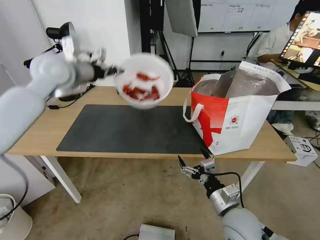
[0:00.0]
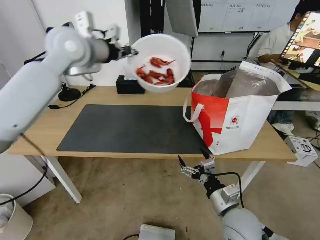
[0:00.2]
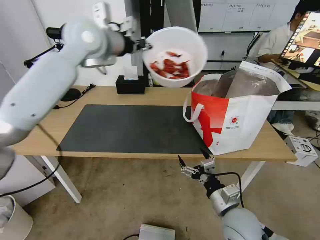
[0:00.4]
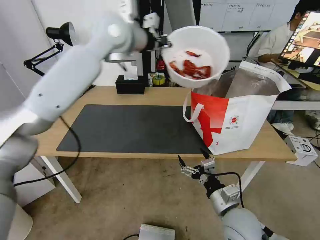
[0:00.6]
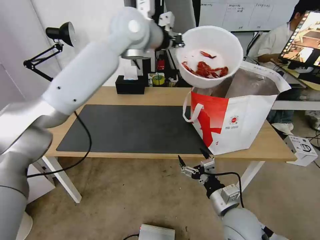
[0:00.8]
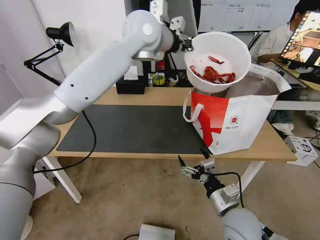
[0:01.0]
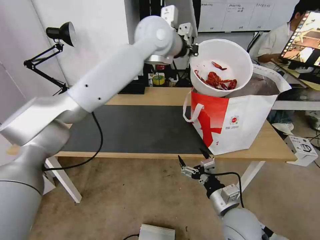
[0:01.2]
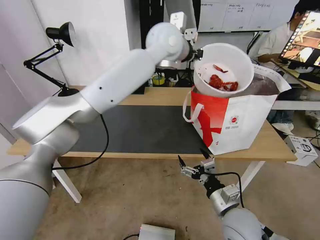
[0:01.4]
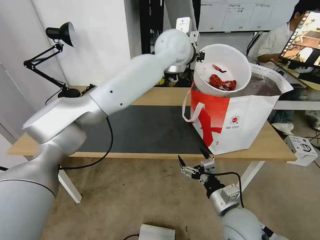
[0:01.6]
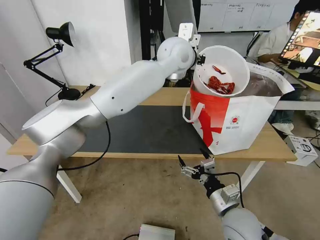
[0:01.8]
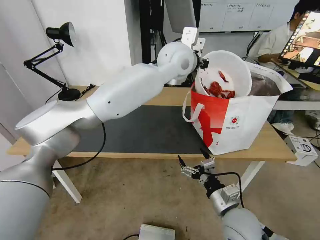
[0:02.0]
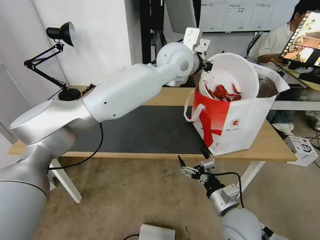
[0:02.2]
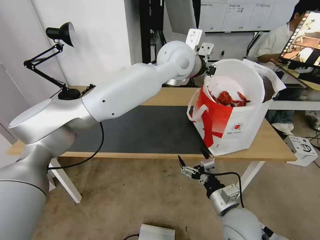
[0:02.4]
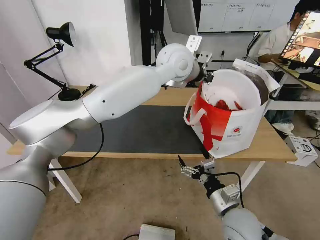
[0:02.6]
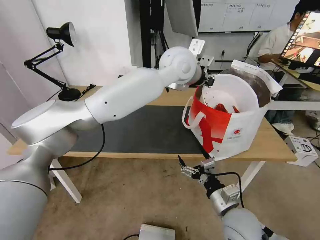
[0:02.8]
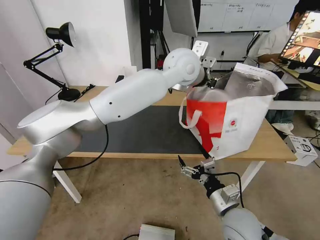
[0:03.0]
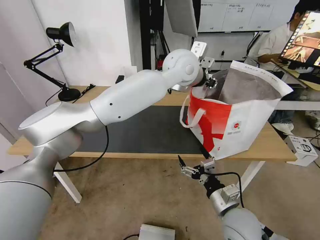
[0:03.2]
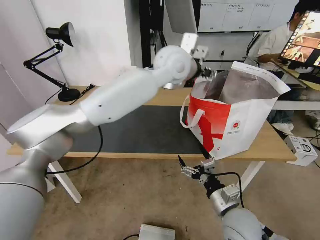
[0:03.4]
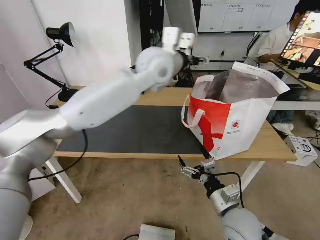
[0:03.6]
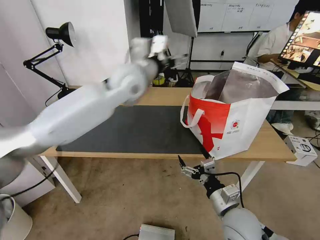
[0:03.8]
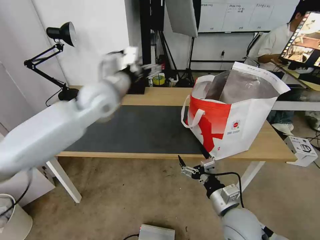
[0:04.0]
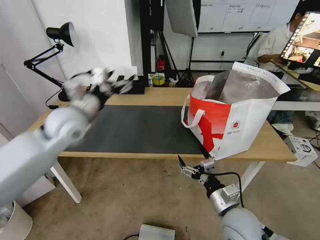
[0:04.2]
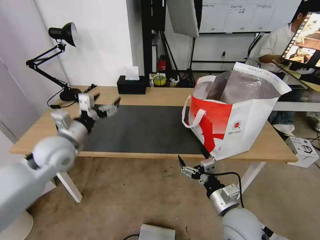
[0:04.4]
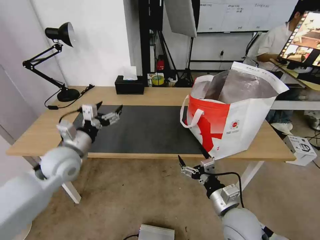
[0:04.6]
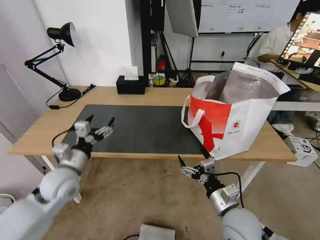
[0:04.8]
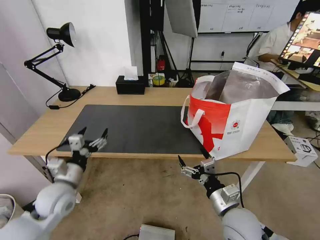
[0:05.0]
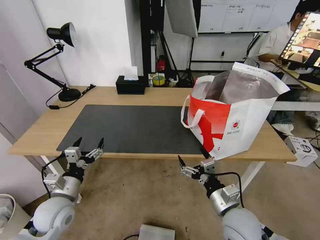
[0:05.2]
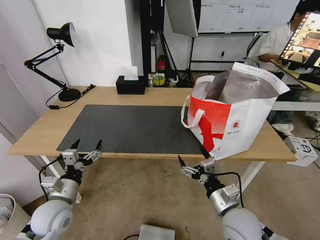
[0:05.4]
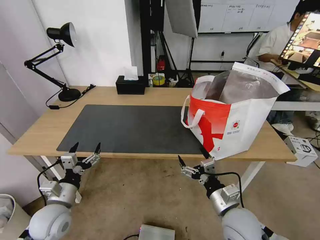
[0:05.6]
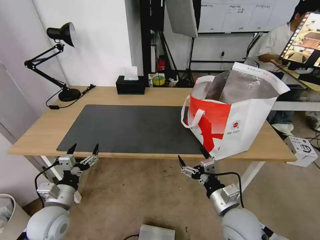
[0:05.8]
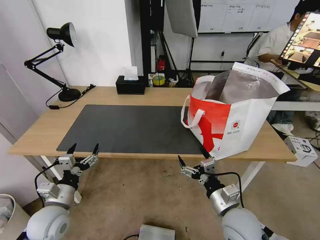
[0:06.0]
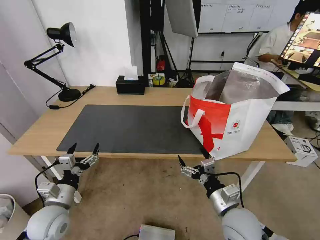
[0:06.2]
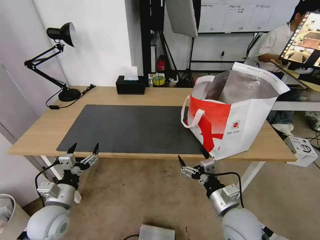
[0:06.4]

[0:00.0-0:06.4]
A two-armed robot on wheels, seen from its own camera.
Task of the whole recording: Pick up the trash from the table and place it into the takeout bag.
0:00.0 to 0:01.6: The left gripper shifts about 30 cm to the right.
0:01.6 to 0:03.2: The left gripper ends up about 5 cm from where it was, and opens up.
0:03.2 to 0:04.8: The left gripper goes some 50 cm to the left, downward and backward, and opens.
0:04.8 to 0:06.4: The left gripper is displaced backward and downward by approximately 10 cm.

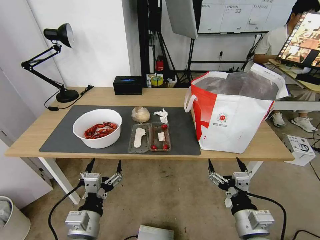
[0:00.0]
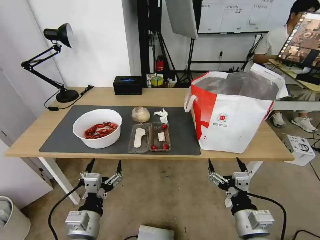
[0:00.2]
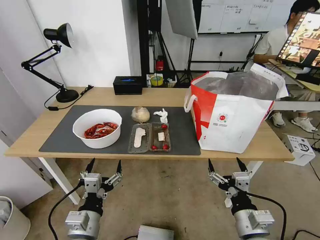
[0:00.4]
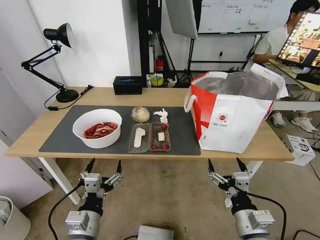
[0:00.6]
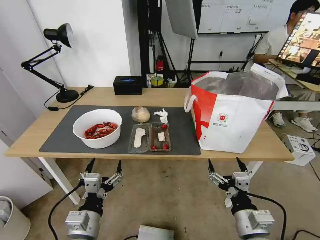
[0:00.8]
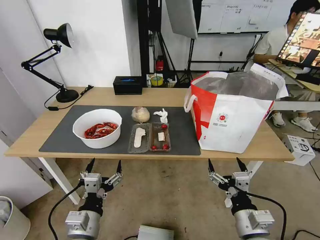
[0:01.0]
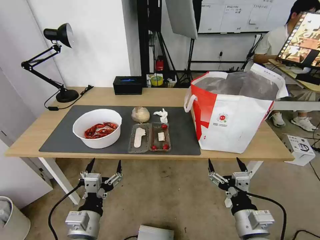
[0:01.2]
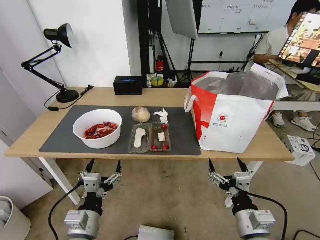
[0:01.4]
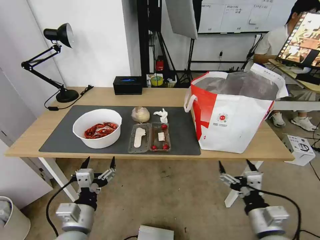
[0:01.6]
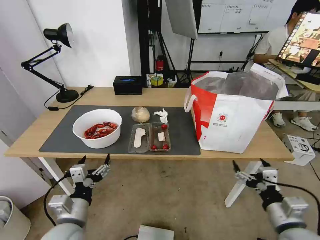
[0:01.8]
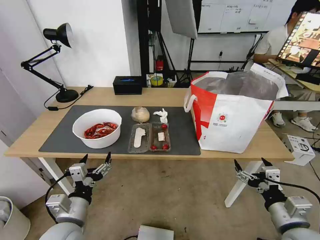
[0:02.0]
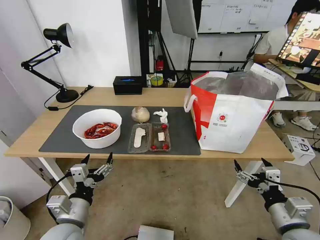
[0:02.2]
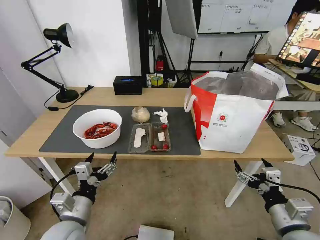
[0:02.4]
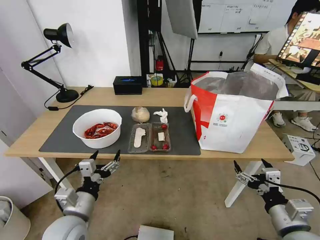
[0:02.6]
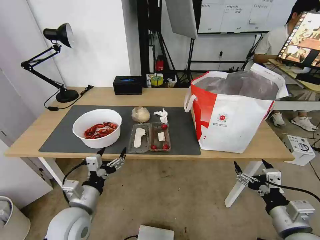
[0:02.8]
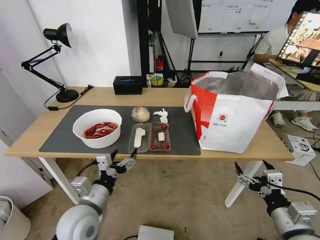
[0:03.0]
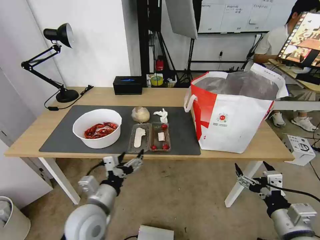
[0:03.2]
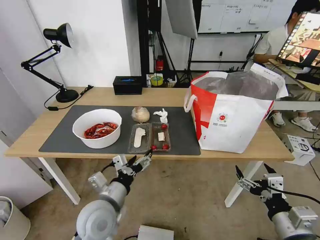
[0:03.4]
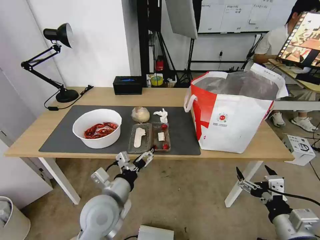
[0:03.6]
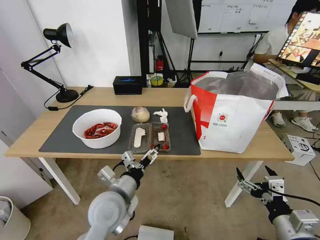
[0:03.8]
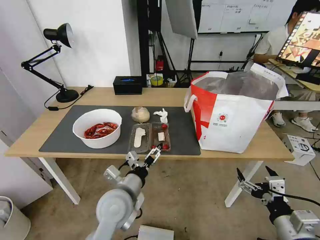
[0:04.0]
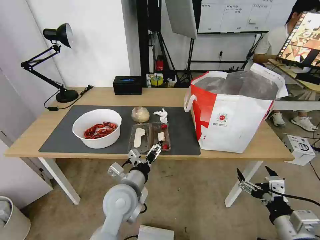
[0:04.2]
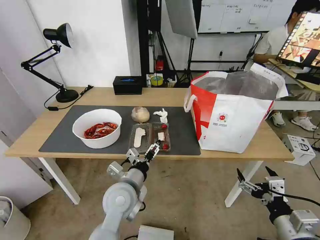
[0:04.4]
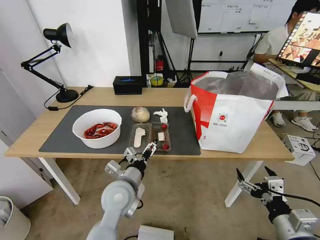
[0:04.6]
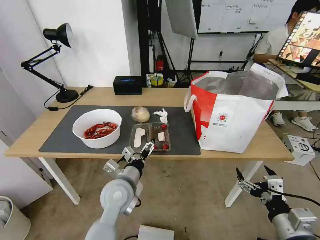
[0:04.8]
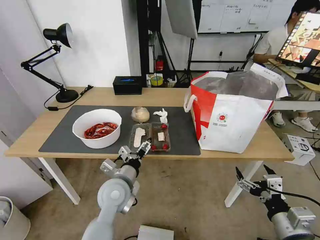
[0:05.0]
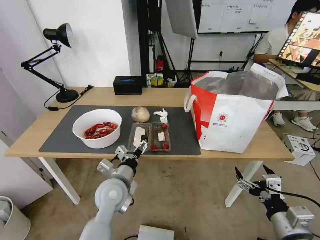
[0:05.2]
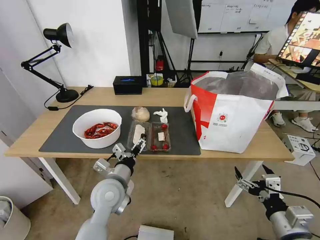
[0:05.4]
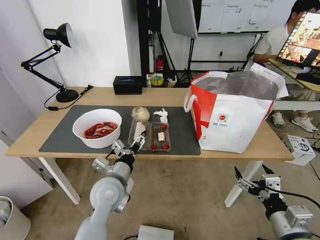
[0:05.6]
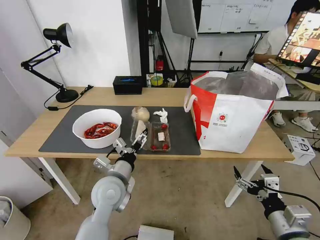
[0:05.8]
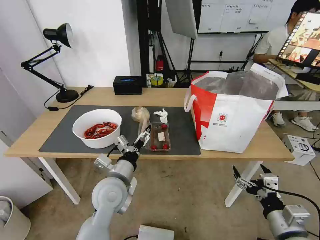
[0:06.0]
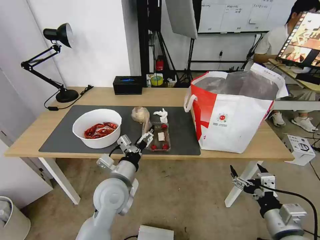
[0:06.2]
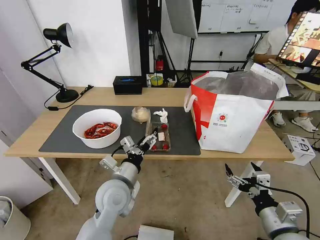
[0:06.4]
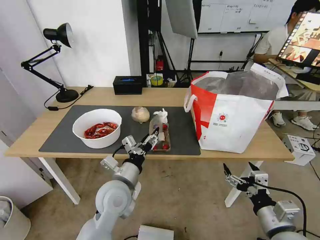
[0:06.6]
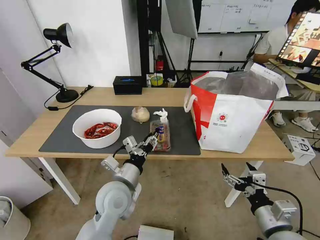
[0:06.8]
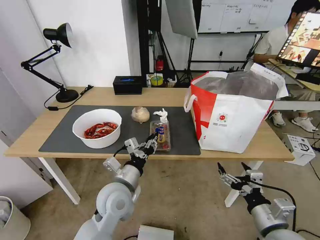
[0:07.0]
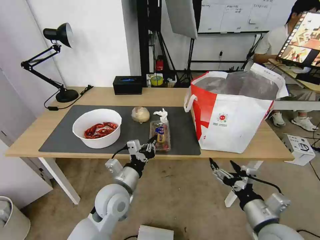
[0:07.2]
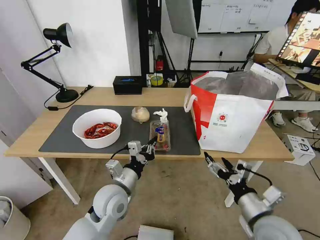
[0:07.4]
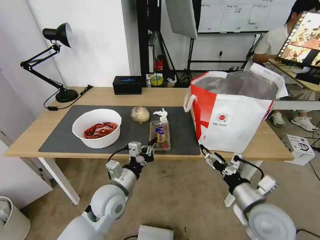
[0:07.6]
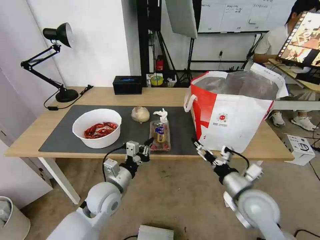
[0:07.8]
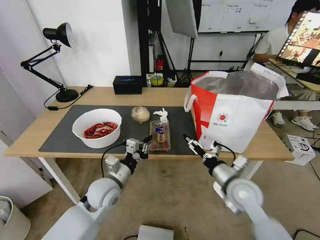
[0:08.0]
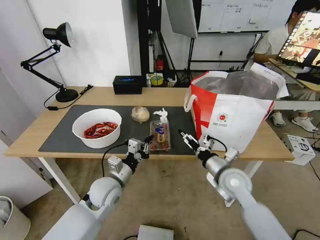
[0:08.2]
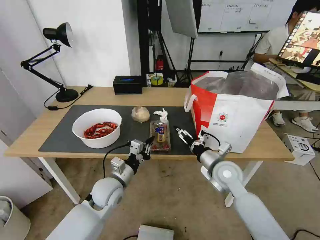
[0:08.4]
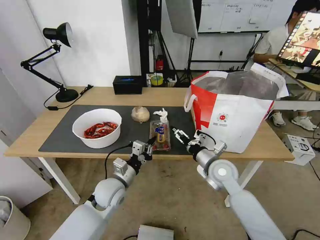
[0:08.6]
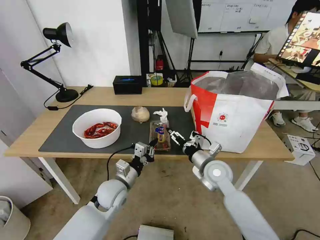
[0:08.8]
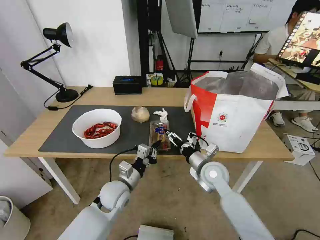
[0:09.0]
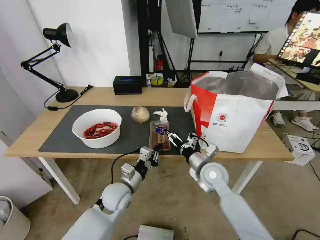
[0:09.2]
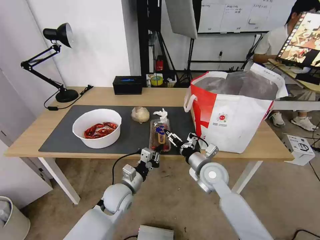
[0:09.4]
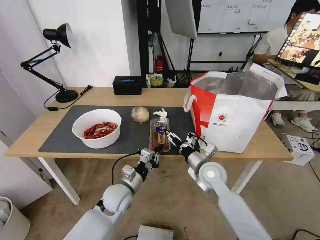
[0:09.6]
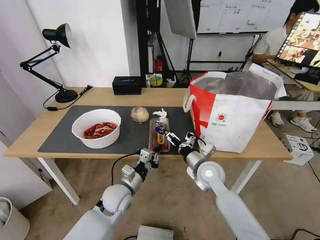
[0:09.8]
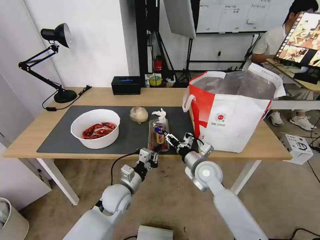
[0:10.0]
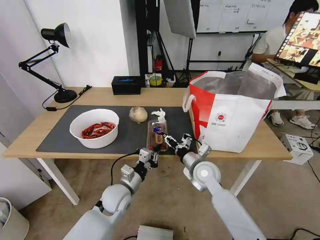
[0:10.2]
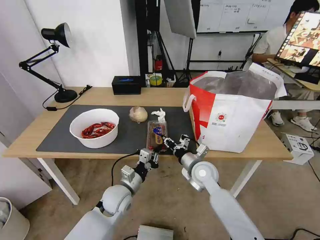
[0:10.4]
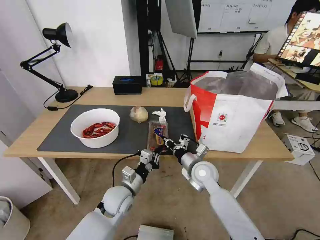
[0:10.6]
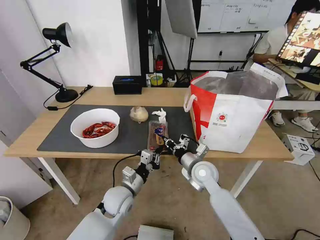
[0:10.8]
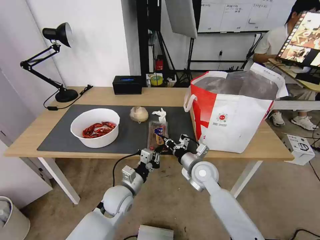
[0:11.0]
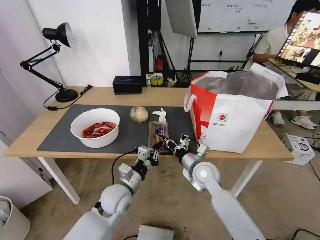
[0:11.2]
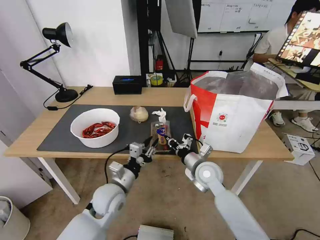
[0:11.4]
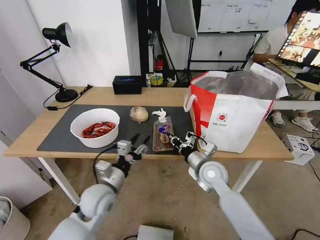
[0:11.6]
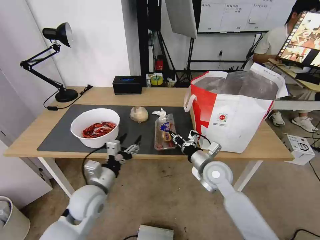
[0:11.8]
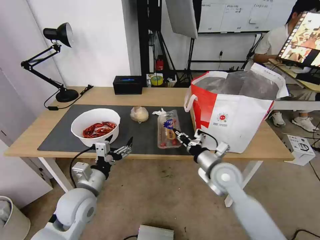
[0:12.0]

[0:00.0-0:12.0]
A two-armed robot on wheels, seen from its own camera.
Task of the whole recording: Pick up the trash from the table and place it into the takeout bag.
0:01.6 to 0:03.0: The left gripper heads forward, covering about 5 cm; the right gripper goes roughly 5 cm to the right.
0:03.0 to 0:04.4: The left gripper moves to the right and forward, about 10 cm.
0:04.4 to 0:06.0: The grippers make only small movements.
0:06.0 to 0:07.6: The left gripper closes its fingers; the right gripper is displaced forward and to the left by some 10 cm.
0:07.6 to 0:09.0: The left gripper shifts roughly 5 cm downward; the right gripper is displaced forward and to the left by some 20 cm.
0:09.0 to 0:10.4: The right gripper closes its fingers.
0:10.4 to 0:12.0: The left gripper heads upward and to the left, covering about 10 cm, and opens up. The right gripper heads upward, covering roughly 5 cm.

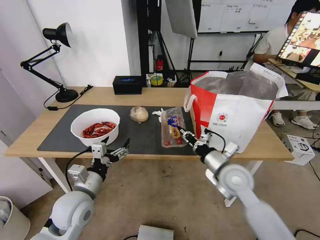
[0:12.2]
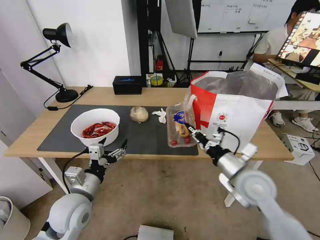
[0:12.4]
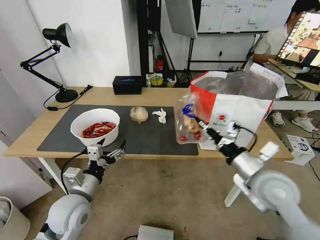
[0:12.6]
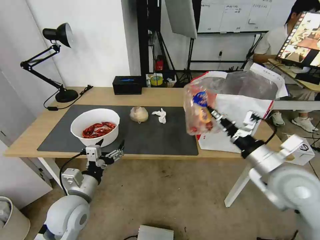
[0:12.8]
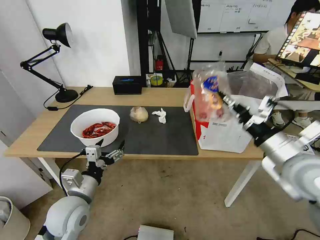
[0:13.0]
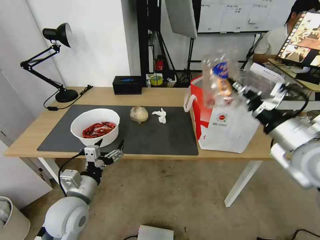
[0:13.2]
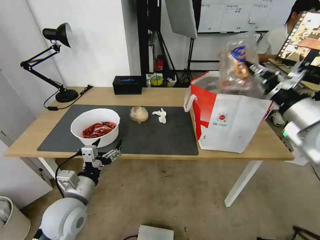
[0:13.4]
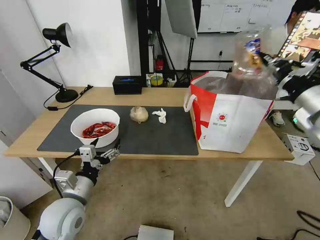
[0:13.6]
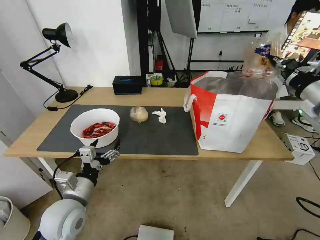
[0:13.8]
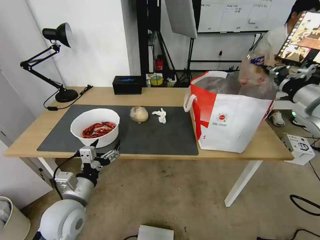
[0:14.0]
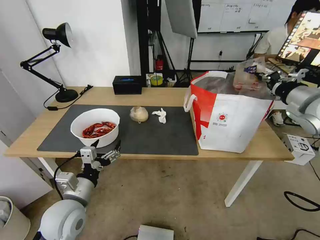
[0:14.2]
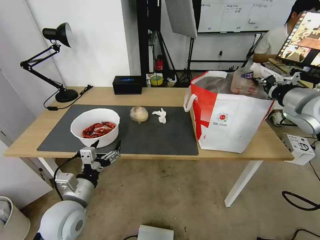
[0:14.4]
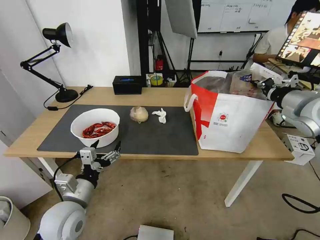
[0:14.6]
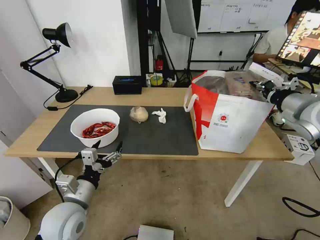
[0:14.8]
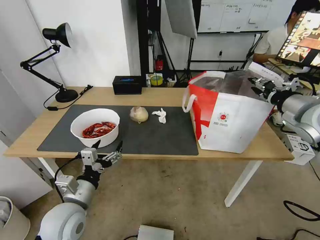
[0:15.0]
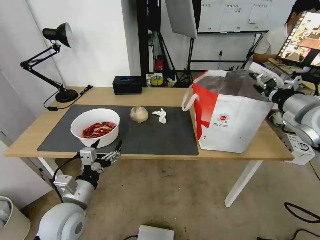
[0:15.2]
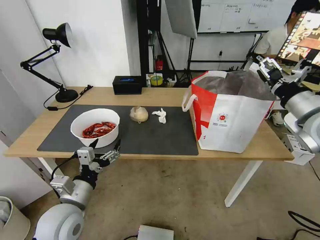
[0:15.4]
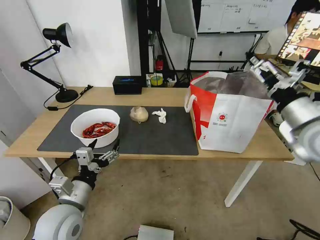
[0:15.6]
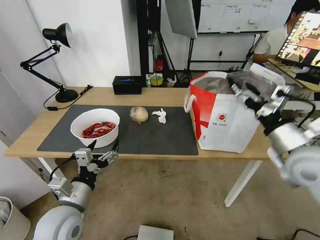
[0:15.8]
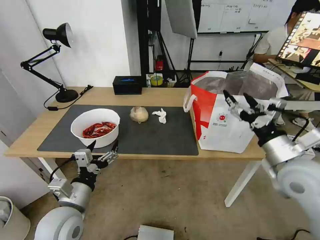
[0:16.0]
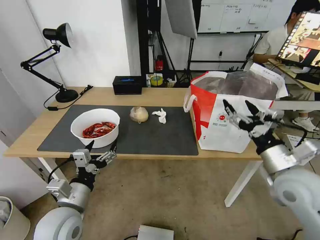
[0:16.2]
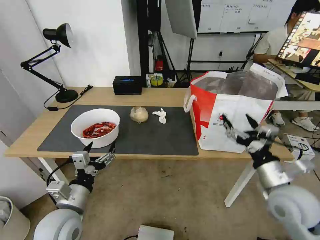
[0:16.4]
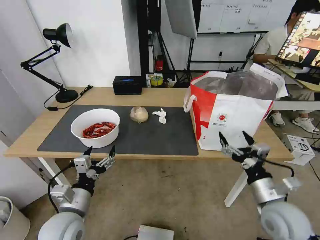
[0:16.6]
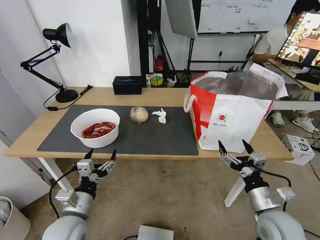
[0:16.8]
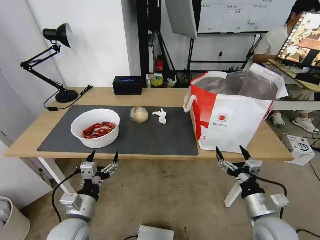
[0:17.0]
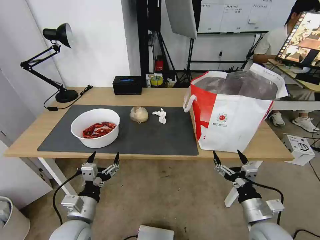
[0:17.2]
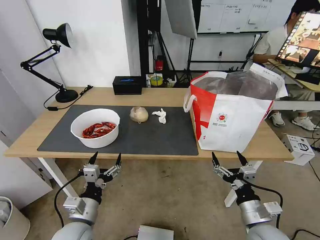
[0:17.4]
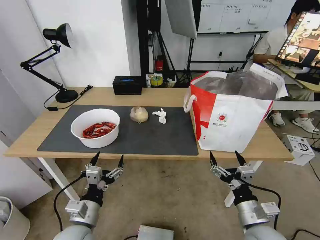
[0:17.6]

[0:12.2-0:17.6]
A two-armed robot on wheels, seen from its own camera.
Task of the whole recording: Pick up the trash from the table and place it into the takeout bag.
0:12.2 to 0:13.6: The right gripper moves upward and to the right, about 25 cm.
0:13.6 to 0:15.0: The right gripper opens.
0:15.0 to 0:16.2: The right gripper is displaced backward, downward and to the left by roughly 20 cm, and opens.
0:16.2 to 0:17.6: The right gripper travels downward and backward by roughly 15 cm, while the left gripper goes about 5 cm downward.
